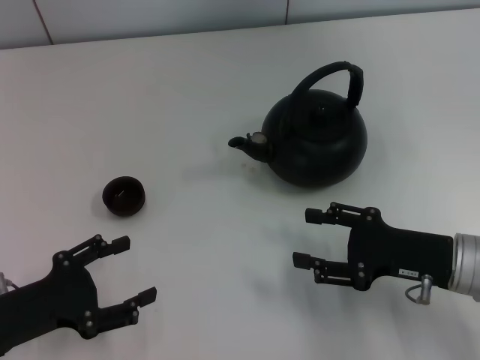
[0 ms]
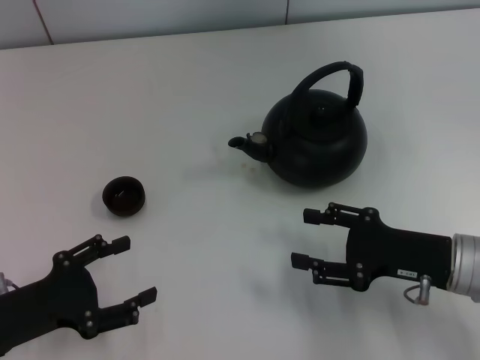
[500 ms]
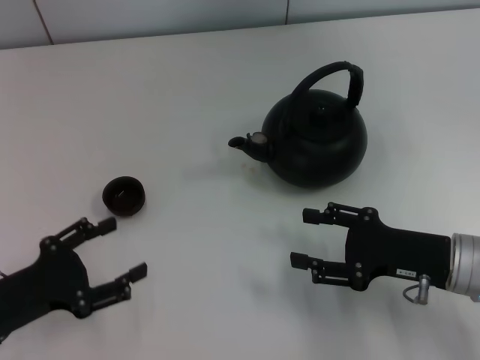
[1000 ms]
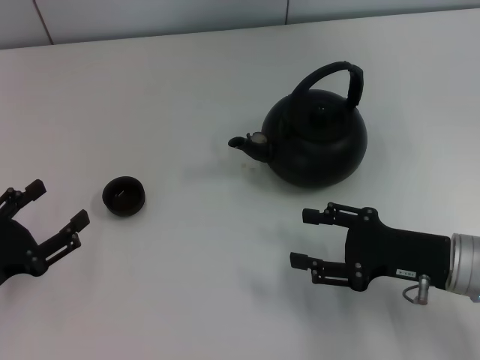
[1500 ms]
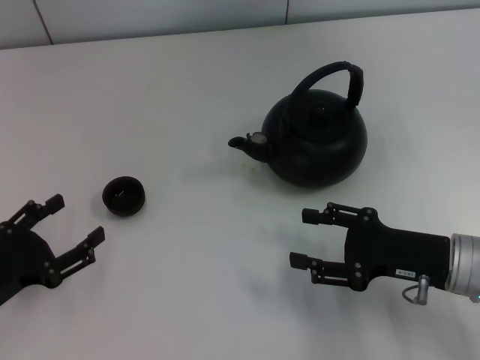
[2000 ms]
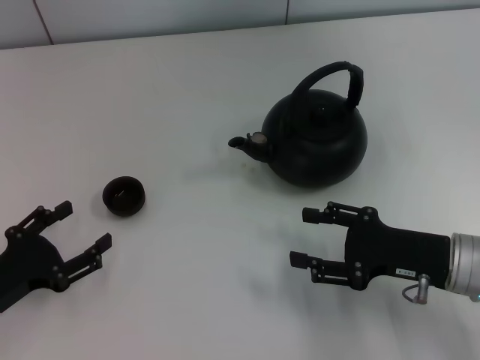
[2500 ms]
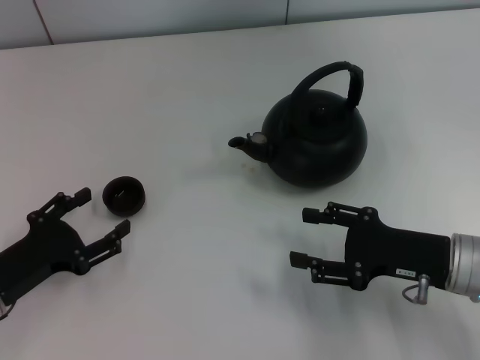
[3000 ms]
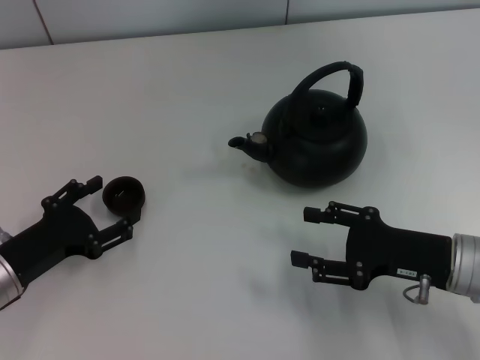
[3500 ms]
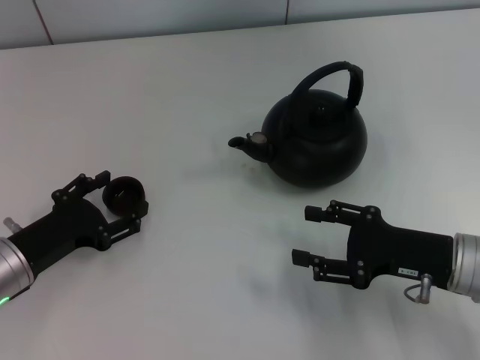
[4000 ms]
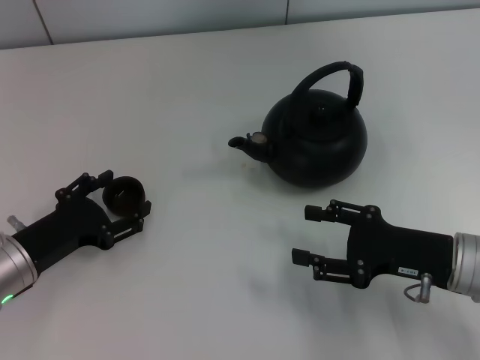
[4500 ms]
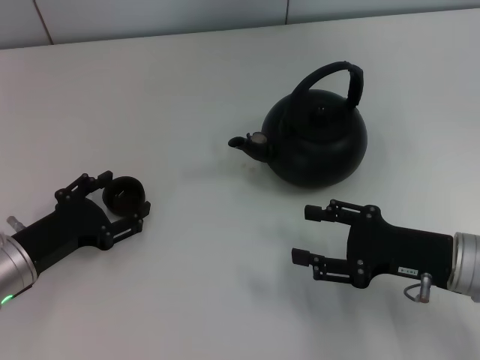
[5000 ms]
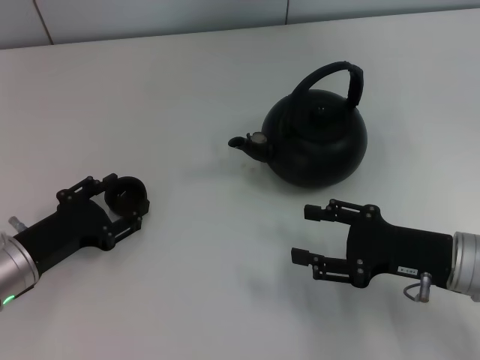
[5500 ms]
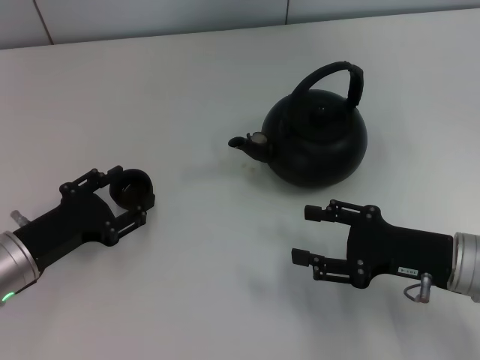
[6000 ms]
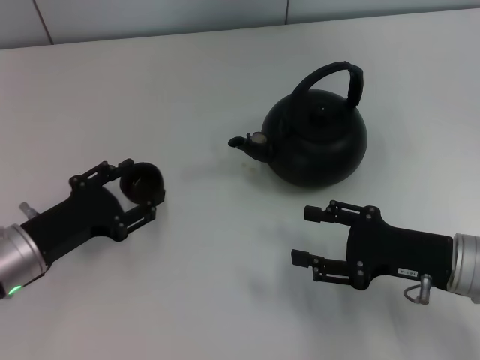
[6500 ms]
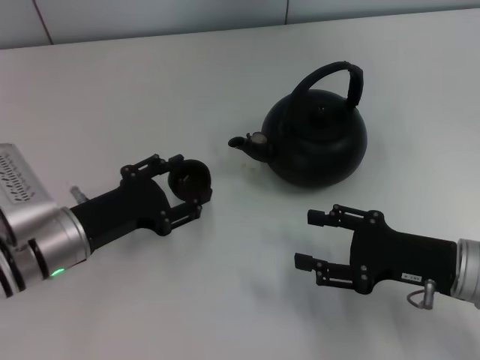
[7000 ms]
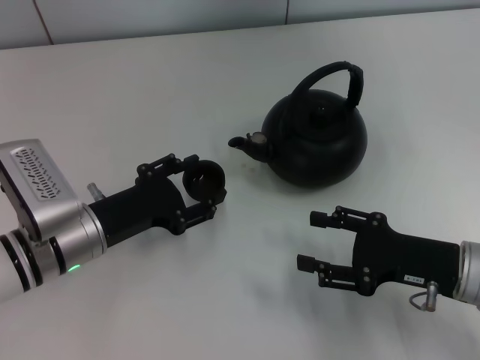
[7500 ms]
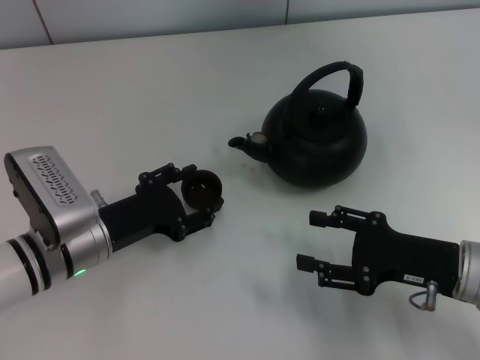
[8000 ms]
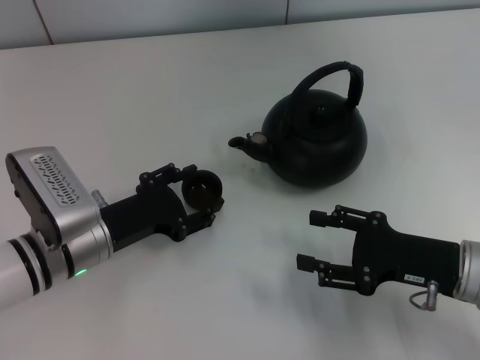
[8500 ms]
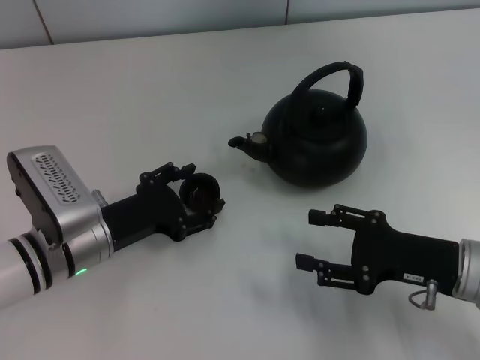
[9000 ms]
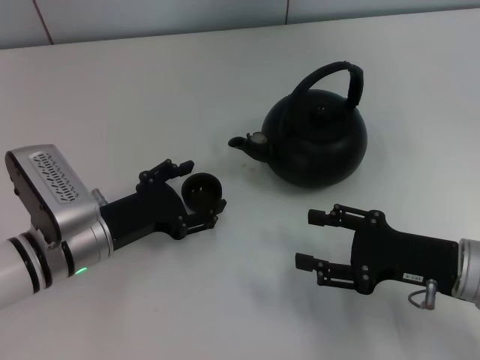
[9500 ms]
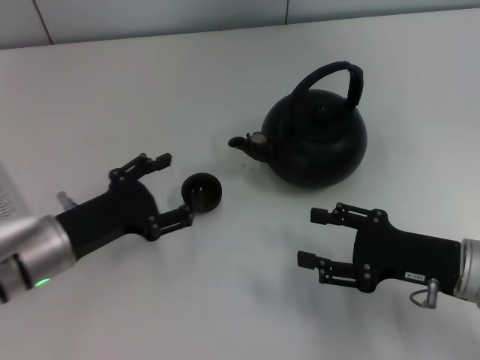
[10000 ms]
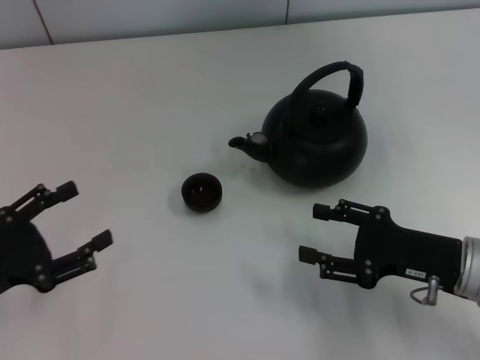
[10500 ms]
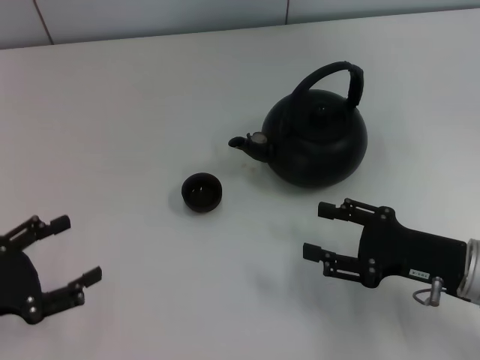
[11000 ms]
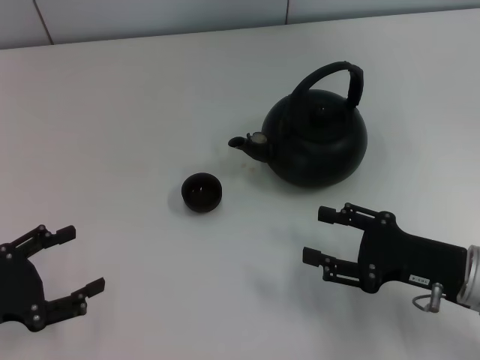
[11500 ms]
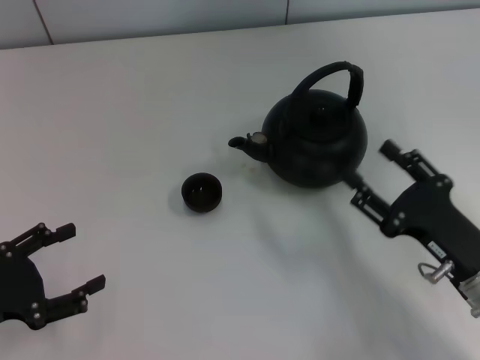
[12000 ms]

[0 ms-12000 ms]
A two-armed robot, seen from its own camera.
Task of the whole recording: Grasp the handle of the teapot with one hand and pour tea into the teacup.
Step, 0 ms to 6500 ms: Pick up the teacup with the left gripper.
Step, 7000 ms to 10000 ms: Place the teacup in the center of view with the left gripper.
2000 ms to 4000 ms: The left gripper moves forward, about 5 cm.
4000 ms to 6000 ms: The left gripper closes up.
6000 ms to 8000 ms: The left gripper travels to the right by approximately 5 cm.
8000 ms to 10000 ms: The left gripper opens.
10000 ms to 12000 ms: The left gripper shifts about 15 cm to the left and backward.

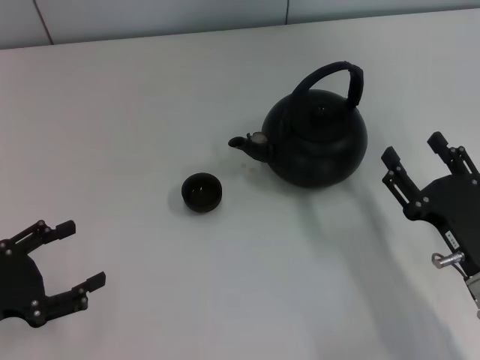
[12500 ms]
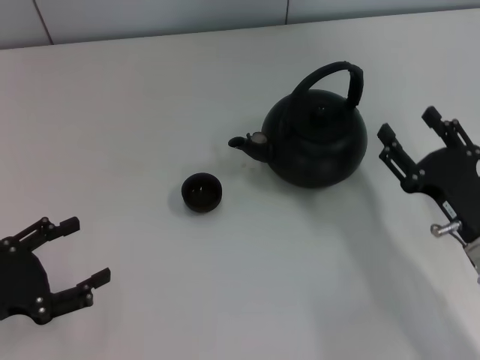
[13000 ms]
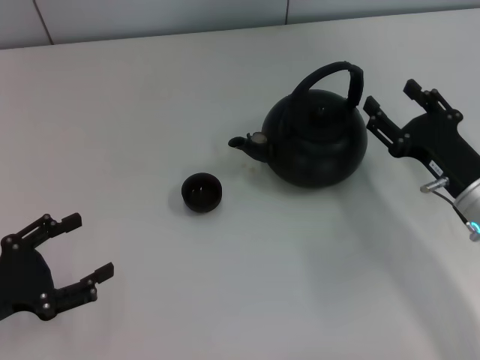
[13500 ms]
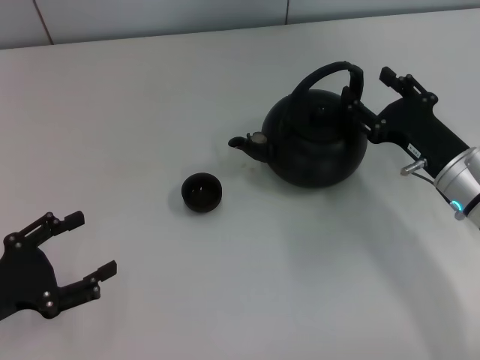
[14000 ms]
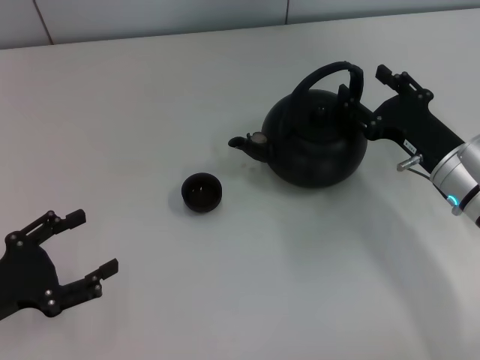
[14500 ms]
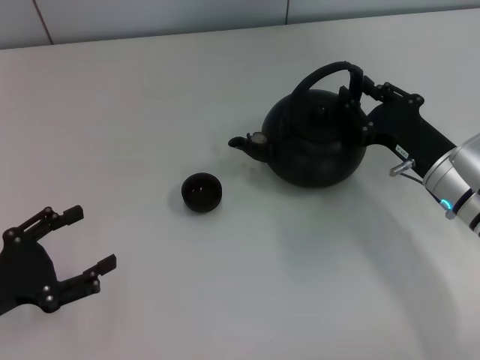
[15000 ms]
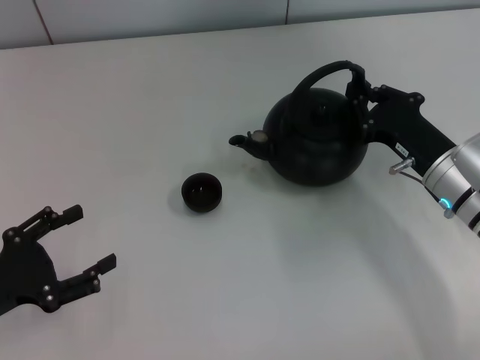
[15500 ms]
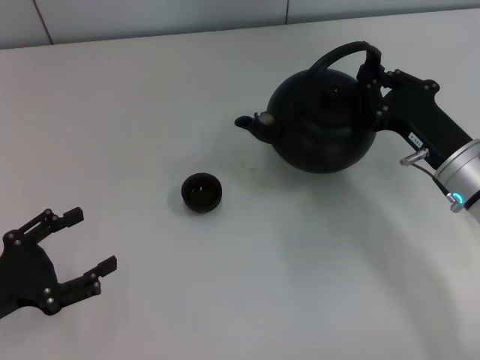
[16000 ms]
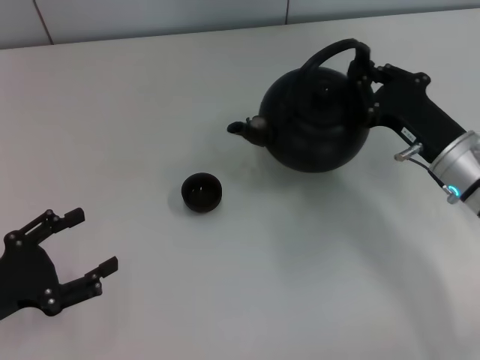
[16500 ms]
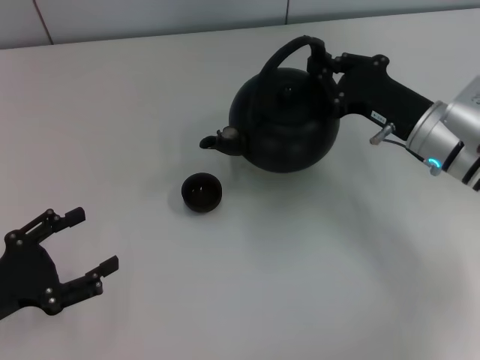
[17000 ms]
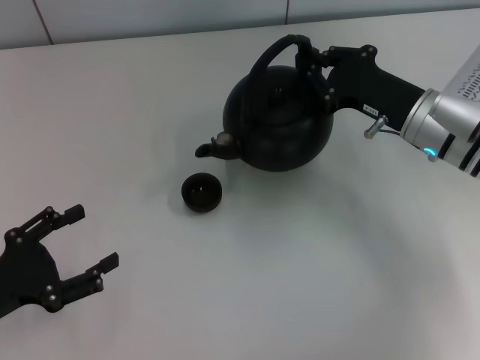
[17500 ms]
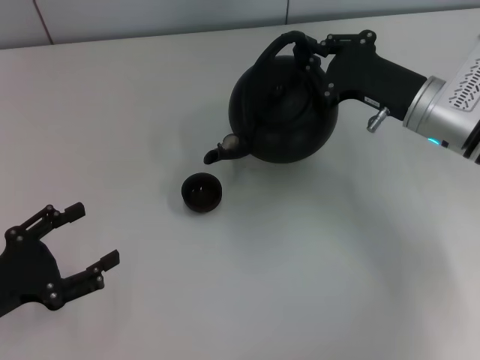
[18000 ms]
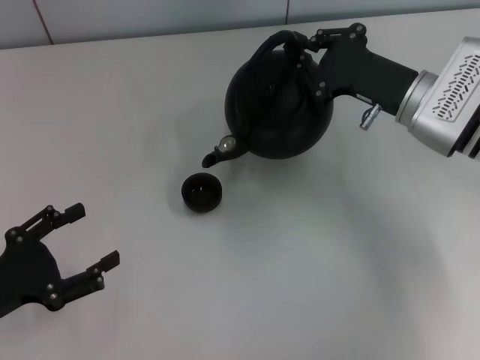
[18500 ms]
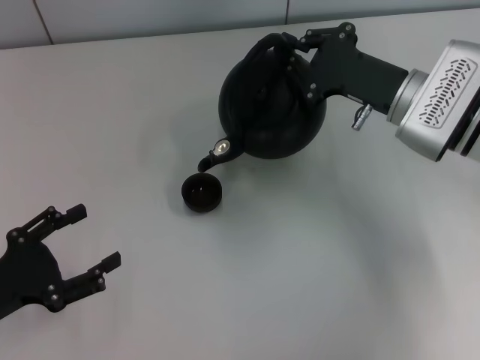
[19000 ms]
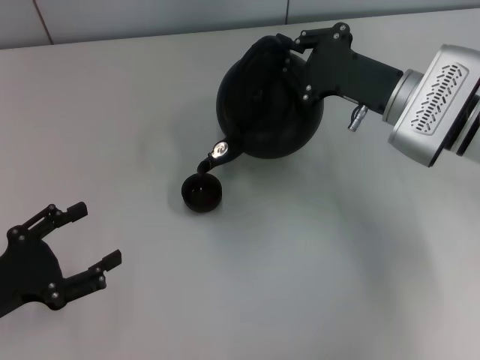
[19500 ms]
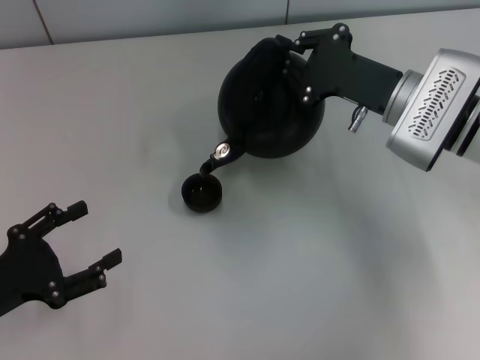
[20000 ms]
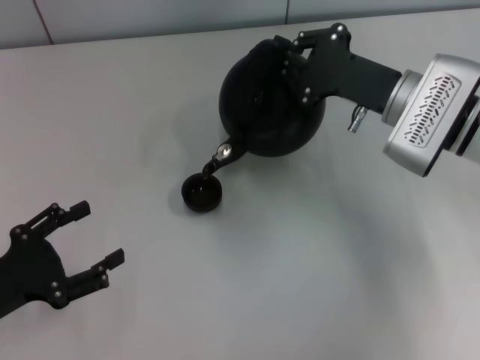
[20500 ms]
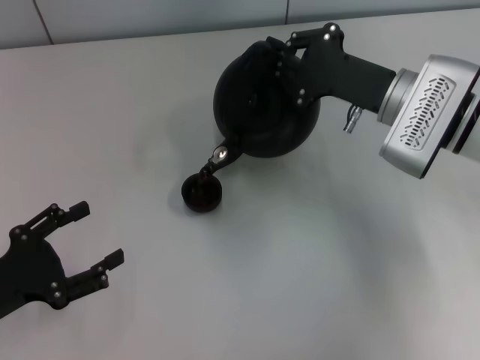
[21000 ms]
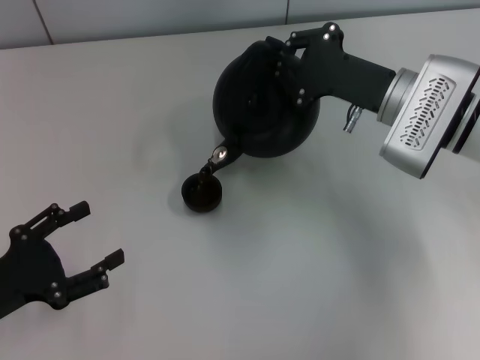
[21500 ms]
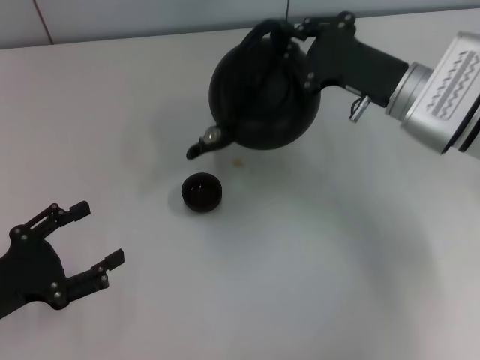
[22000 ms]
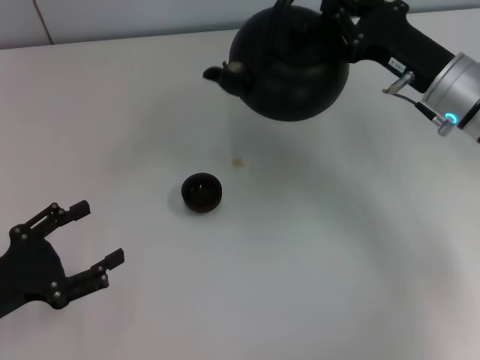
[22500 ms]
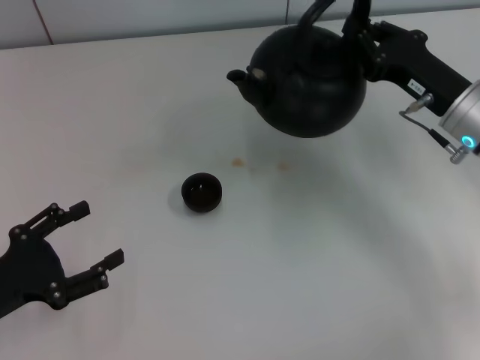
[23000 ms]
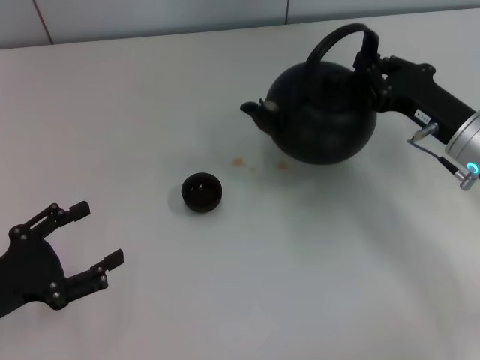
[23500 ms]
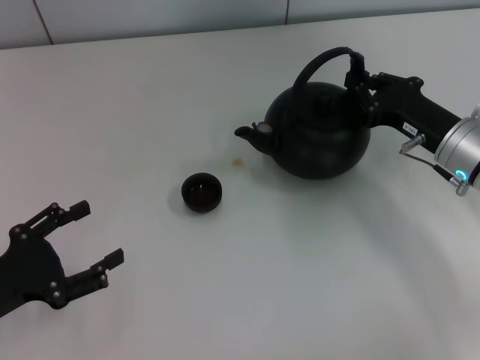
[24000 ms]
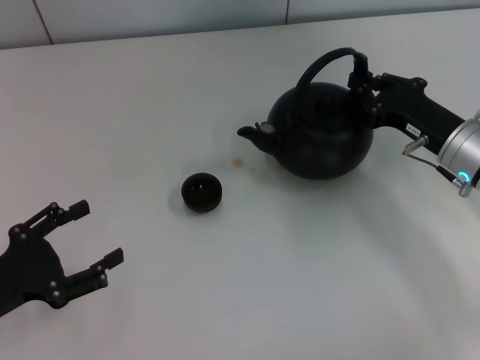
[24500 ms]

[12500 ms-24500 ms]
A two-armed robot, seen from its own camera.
Task of the whole recording: Grasp the handle of the teapot with one hand and pour tea into the teacup.
Step, 12500 ms to 16000 ms: Pick up the teapot with the right gripper.
12500 ms to 14500 ms: The right gripper is displaced forward by about 10 cm.
14500 ms to 16500 ms: The right gripper closes.
16500 ms to 18500 ms: The right gripper heads forward, covering about 5 cm.
18500 ms to 20500 ms: There are only small adjustments of the grippers.
22500 ms to 24500 ms: The right gripper moves downward, some 5 cm.

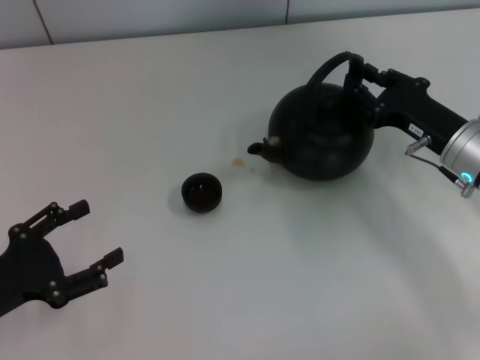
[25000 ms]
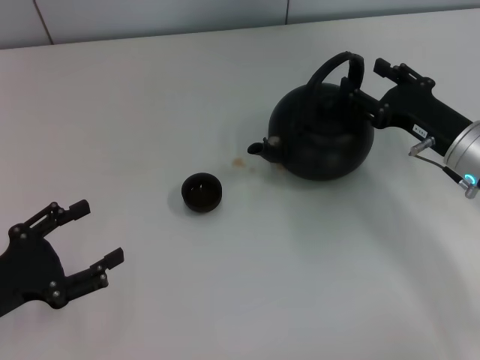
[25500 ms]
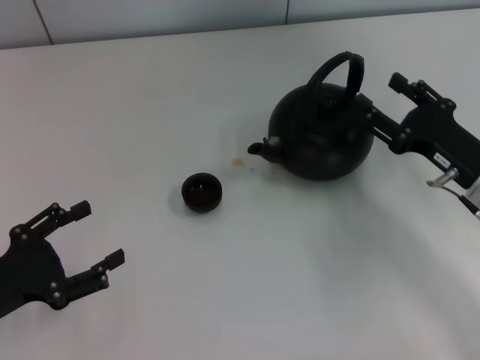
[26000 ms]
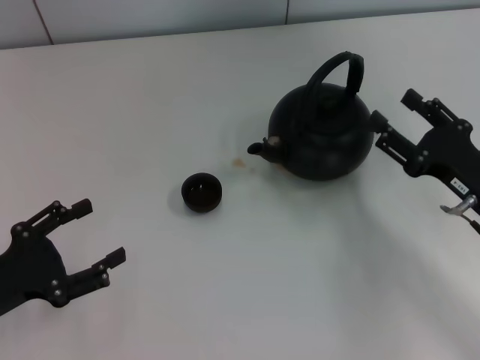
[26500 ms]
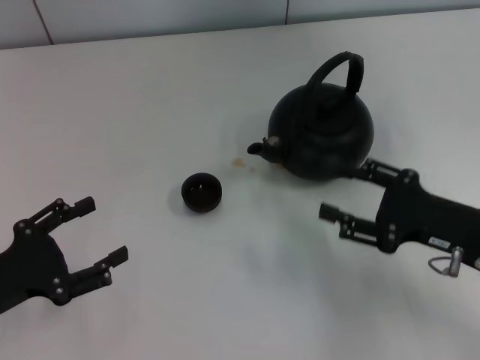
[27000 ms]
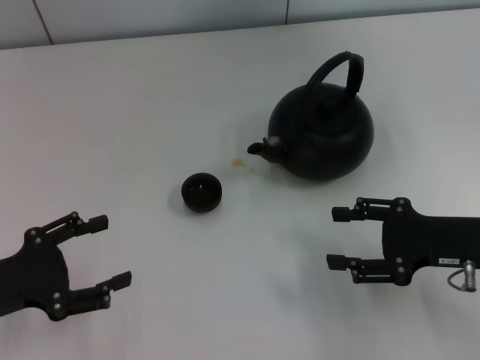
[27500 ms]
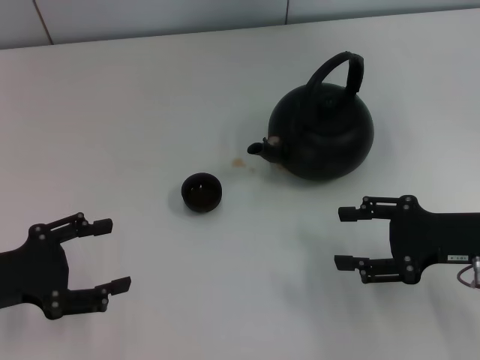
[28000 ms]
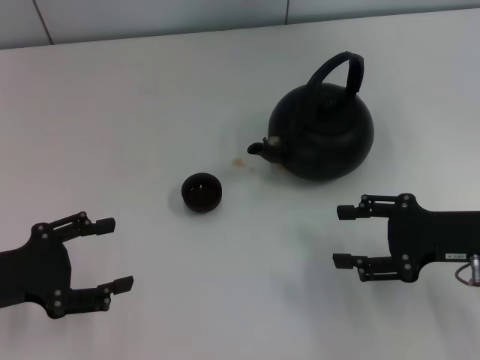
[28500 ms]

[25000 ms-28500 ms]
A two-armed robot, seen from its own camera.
Task of the whole recording: Grasp the handle of the teapot with one hand and pour tea into the teacup.
25000 ms to 27000 ms: The right gripper shifts roughly 10 cm backward, and opens.
